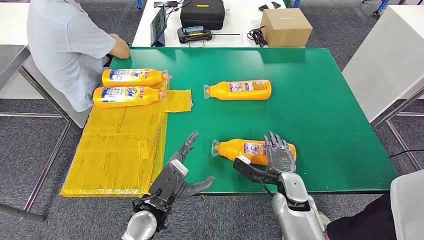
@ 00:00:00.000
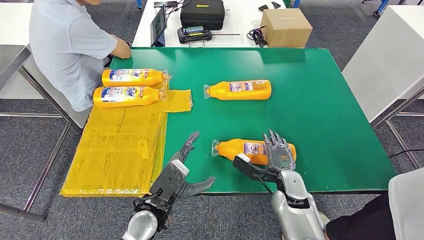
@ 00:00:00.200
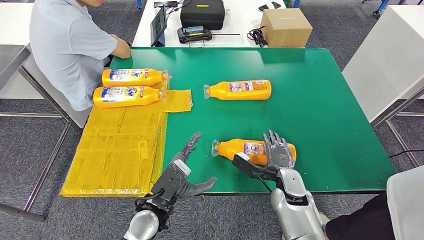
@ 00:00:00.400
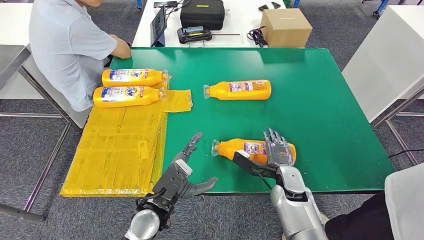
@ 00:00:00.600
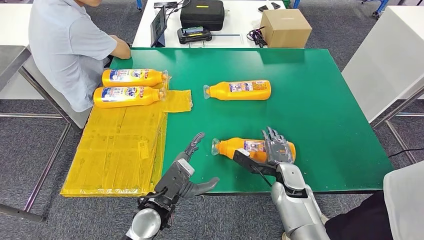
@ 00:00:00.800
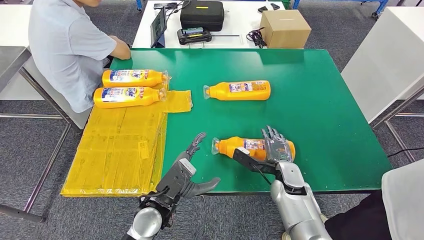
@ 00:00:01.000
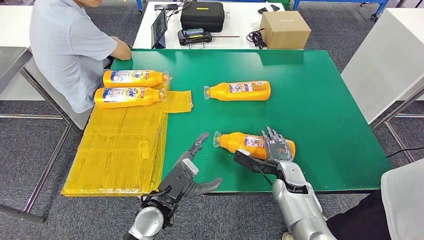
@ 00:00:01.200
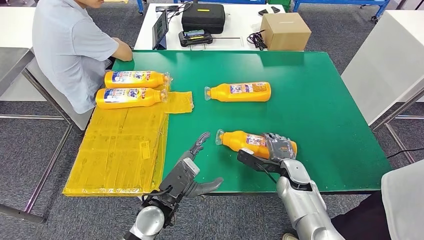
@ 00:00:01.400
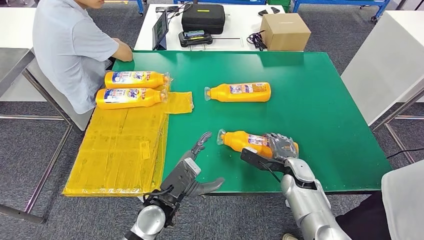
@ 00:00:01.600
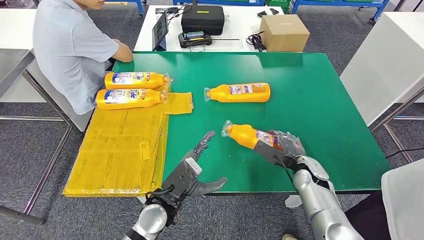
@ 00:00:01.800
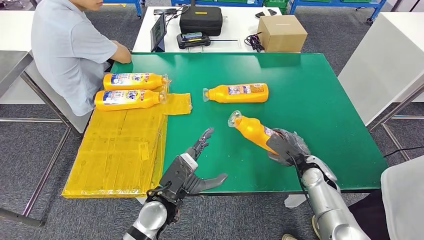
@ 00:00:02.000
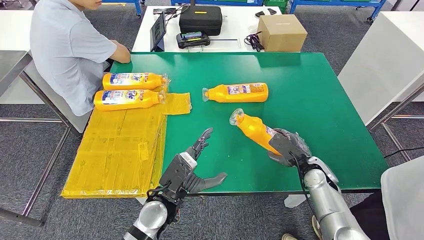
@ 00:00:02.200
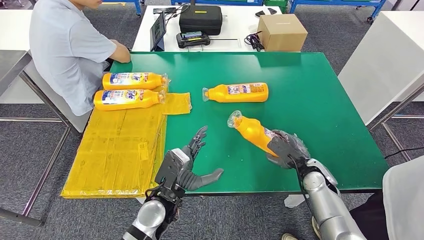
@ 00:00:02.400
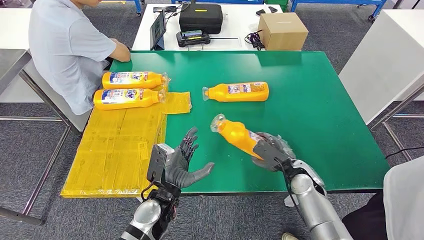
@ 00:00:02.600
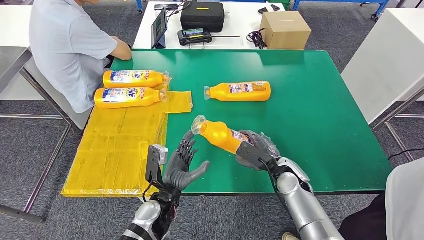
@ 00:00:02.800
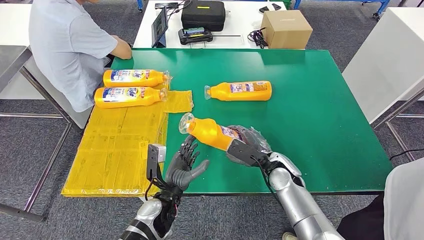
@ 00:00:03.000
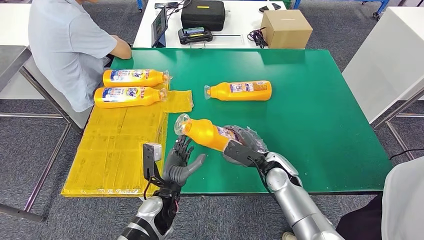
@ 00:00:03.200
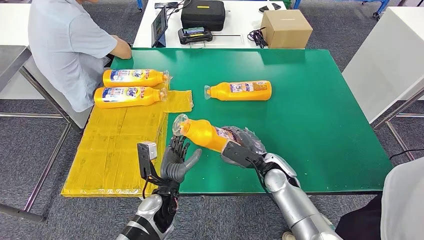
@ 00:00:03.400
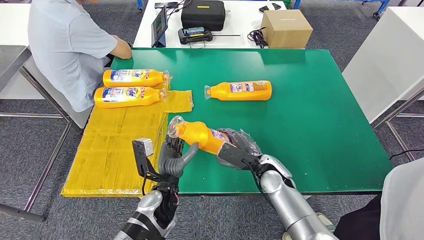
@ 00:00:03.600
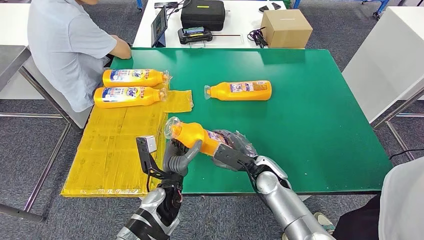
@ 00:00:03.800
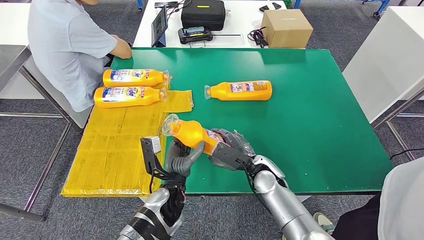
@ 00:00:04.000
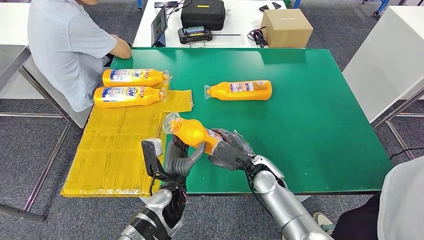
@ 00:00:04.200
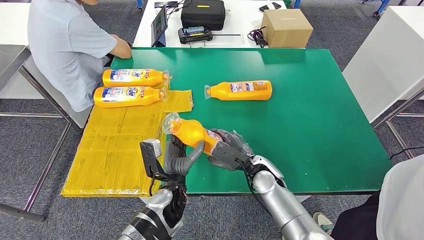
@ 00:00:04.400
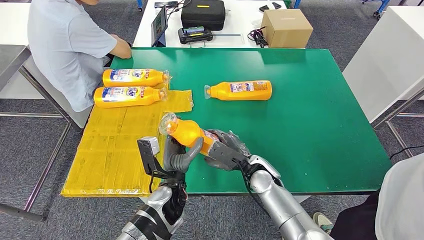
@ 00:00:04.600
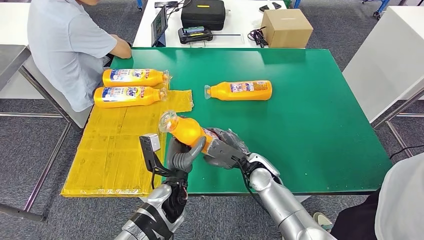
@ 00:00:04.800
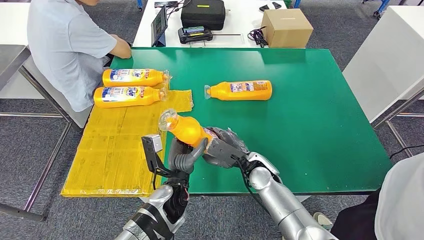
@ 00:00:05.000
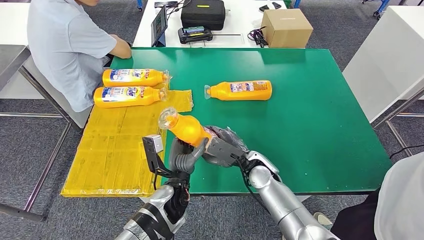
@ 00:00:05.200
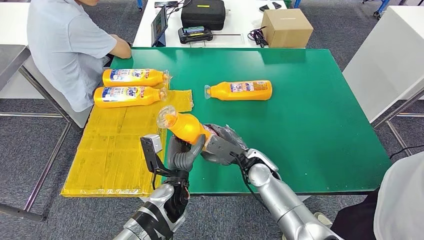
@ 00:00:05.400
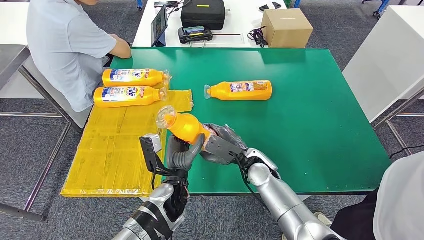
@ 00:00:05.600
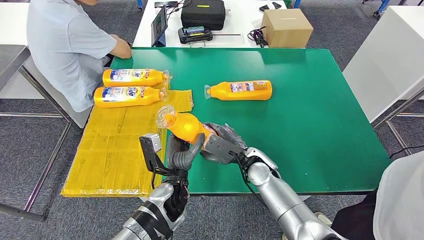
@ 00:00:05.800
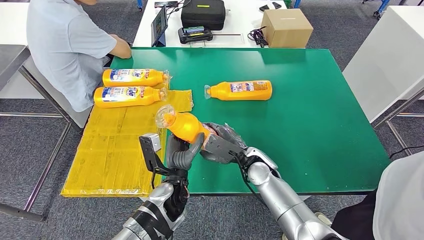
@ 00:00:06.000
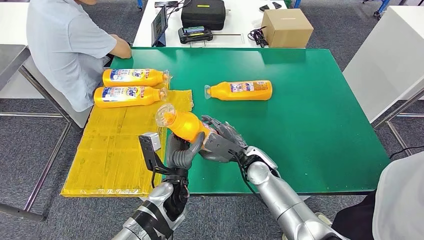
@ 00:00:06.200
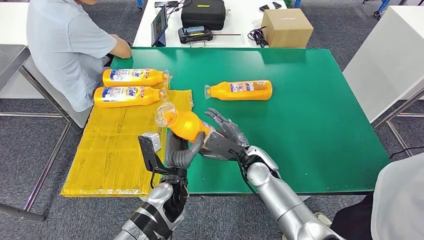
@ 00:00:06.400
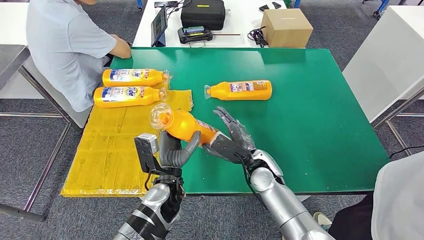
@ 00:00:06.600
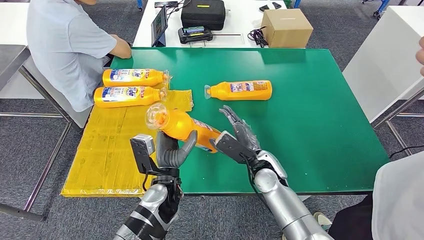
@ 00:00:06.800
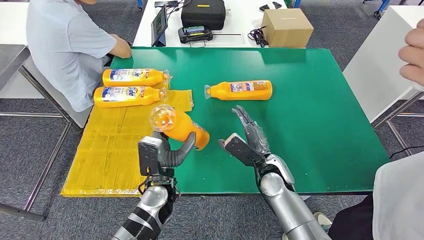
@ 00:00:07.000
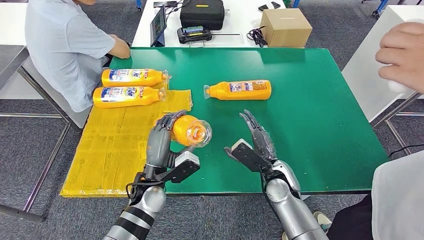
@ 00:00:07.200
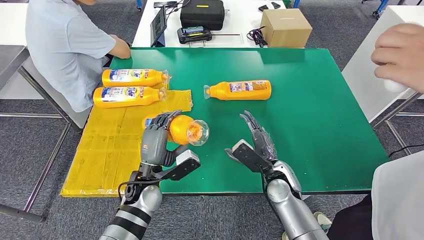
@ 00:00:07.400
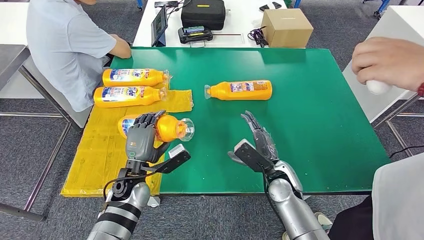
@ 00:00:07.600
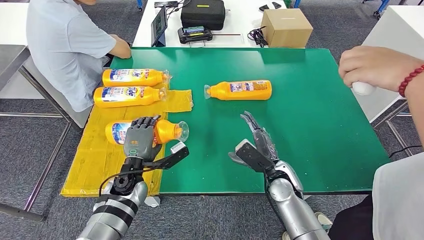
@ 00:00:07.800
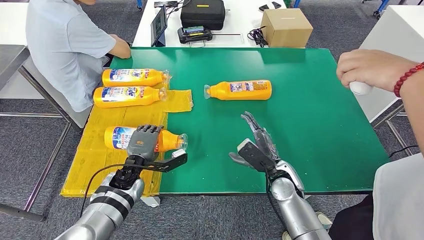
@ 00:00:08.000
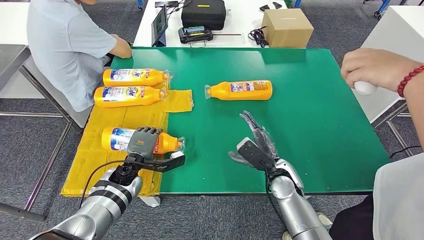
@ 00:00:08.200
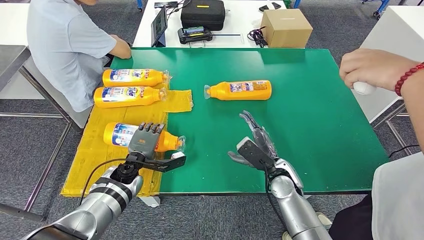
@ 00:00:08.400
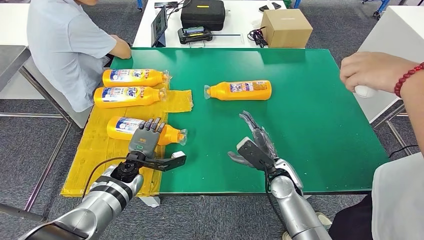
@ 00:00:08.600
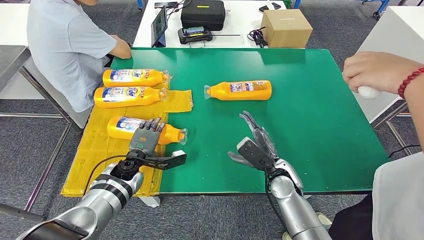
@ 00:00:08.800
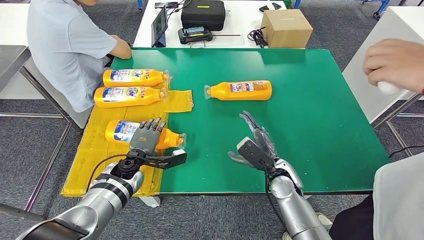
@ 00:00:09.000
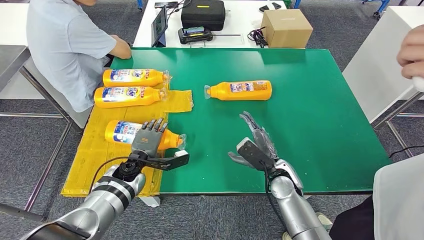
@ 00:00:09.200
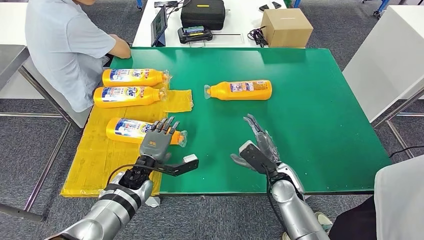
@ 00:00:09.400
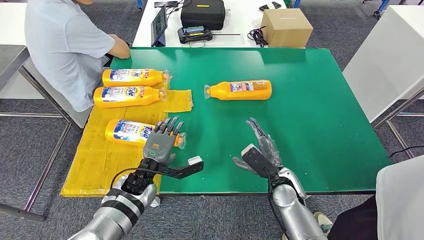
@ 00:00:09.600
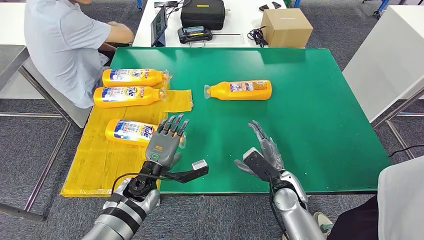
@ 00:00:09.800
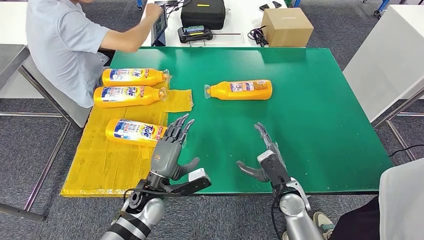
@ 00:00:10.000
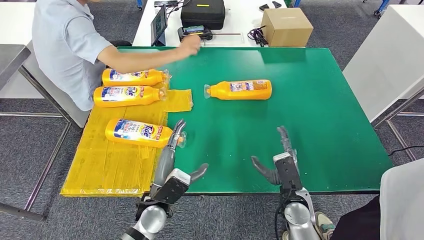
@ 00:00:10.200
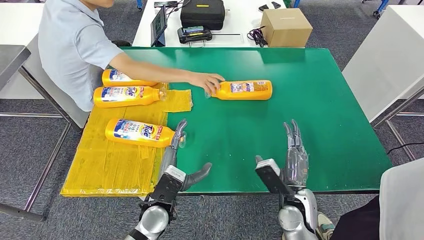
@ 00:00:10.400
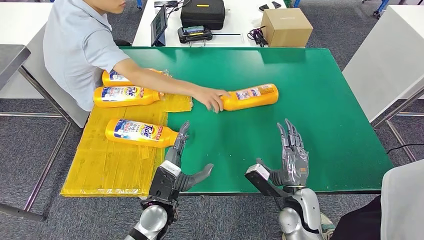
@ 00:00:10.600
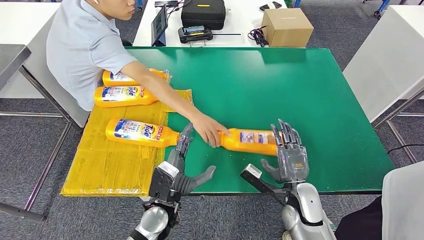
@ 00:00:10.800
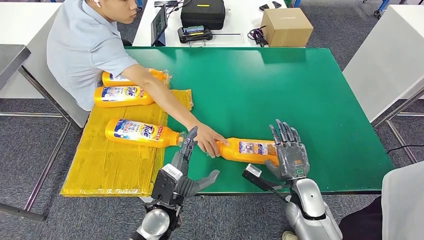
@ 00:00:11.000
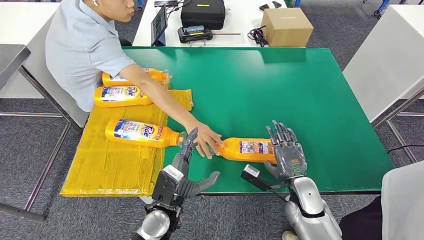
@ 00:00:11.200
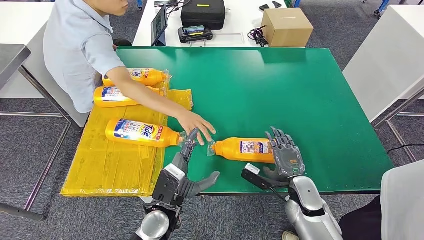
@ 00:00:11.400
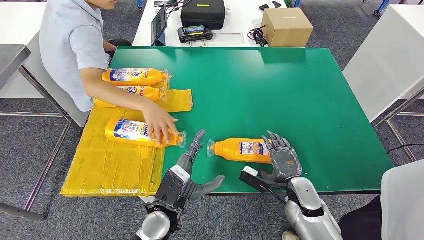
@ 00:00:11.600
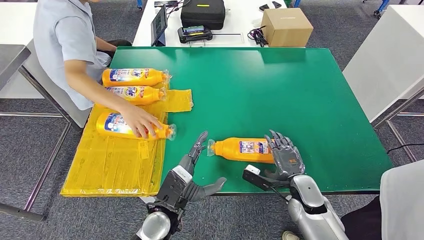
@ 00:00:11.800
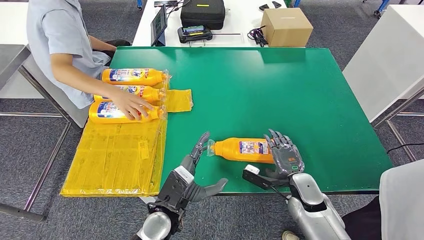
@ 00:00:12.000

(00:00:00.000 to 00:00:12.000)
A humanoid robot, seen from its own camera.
Step, 00:00:00.000 - 00:00:02.800: Pick up the fast-moving consumer goods bottle from the table.
Step, 00:00:03.000 - 00:00:07.800: Flip the fast-moving consumer goods bottle to the front side.
00:00:01.600 - 00:00:03.000: The right hand heads to the left and upward, covering some 10 cm, while the left hand moves downward, some 5 cm.
00:00:03.000 - 00:00:04.400: The right hand shifts approximately 5 cm to the left.
00:00:04.400 - 00:00:06.000: The hands stay close to where they were, moving slightly.
00:00:06.000 - 00:00:07.600: The right hand travels to the right by roughly 5 cm; the left hand moves to the left, roughly 10 cm.
00:00:07.600 - 00:00:09.000: The left hand is displaced forward by approximately 5 cm.
00:00:10.400 - 00:00:12.000: The right hand shifts by approximately 5 cm.

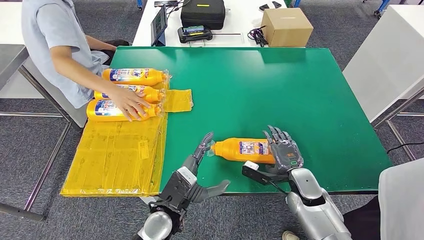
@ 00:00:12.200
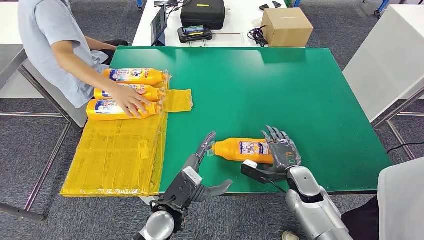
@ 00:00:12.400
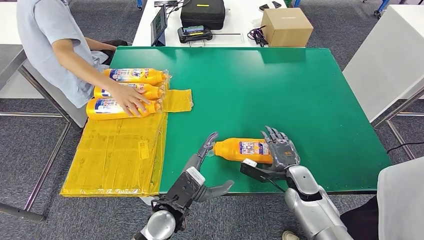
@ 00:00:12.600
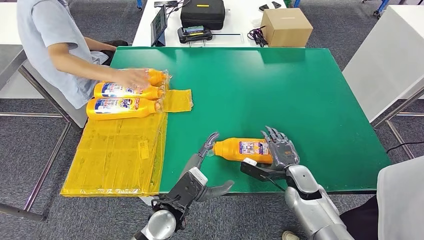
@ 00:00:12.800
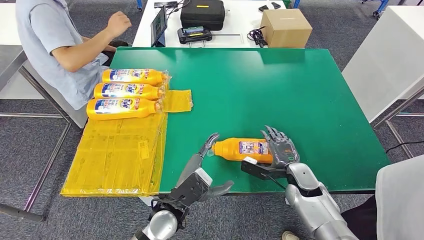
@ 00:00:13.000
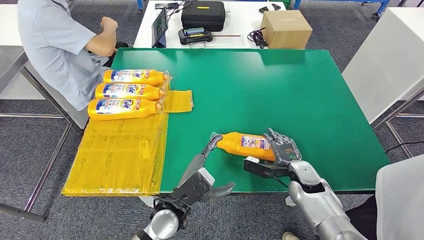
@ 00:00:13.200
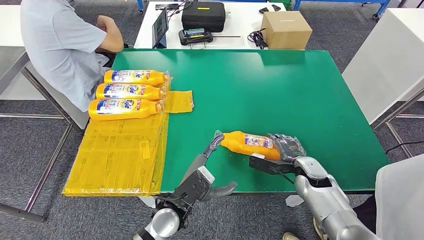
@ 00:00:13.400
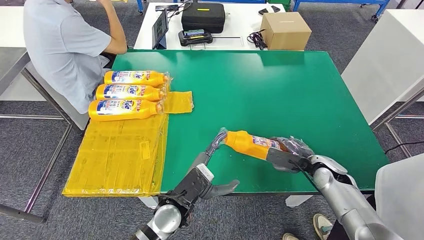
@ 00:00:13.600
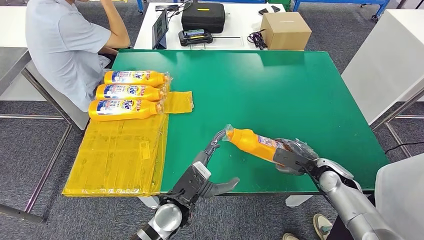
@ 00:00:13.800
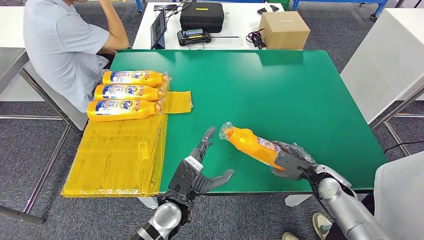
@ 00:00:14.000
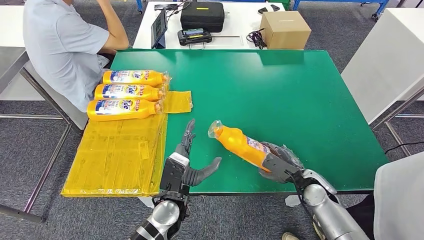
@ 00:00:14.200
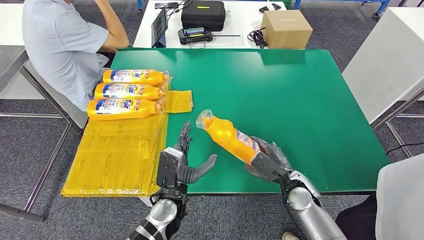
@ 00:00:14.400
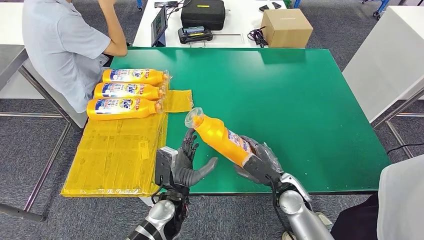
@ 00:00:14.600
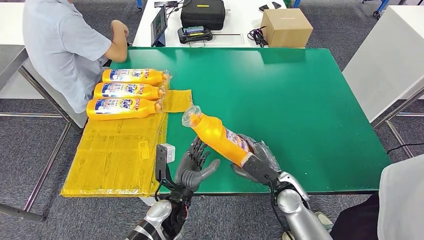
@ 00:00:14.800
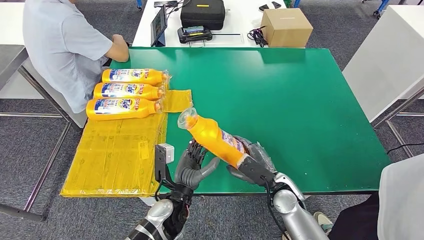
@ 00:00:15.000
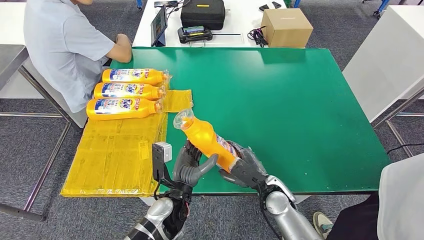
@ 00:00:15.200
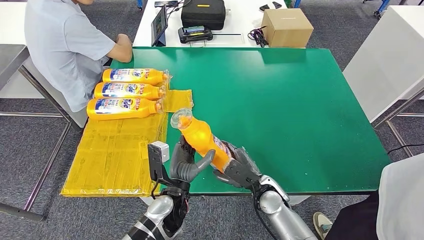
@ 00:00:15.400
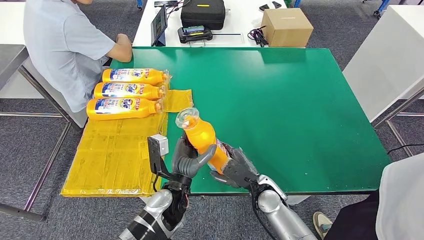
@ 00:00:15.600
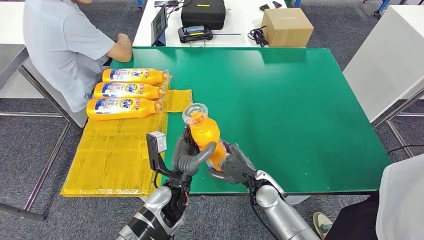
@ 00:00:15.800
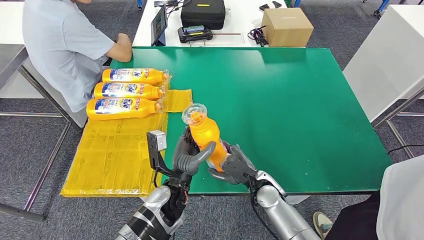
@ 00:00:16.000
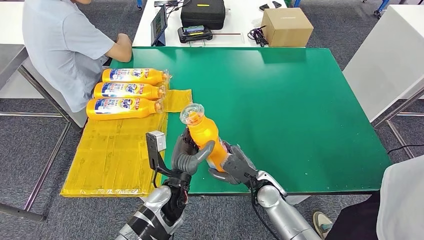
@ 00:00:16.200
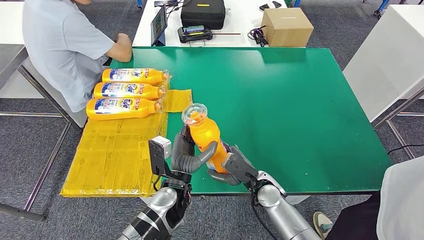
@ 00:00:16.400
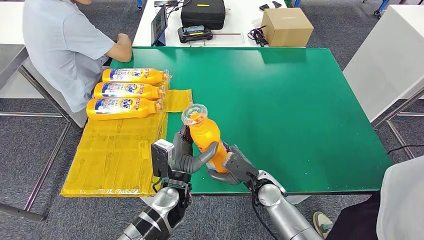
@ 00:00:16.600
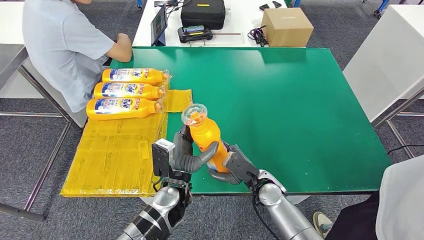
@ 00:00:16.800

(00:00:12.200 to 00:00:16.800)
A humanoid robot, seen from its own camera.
Step, 00:00:12.200 - 00:00:15.200: Pick up the fast-moving consumer goods bottle from the table.
